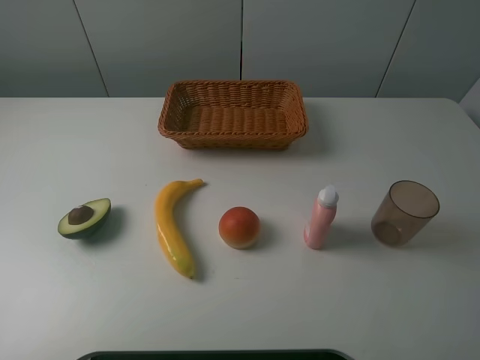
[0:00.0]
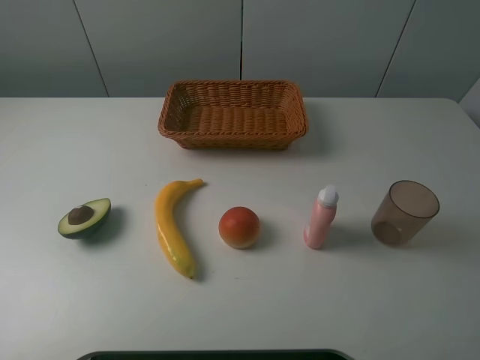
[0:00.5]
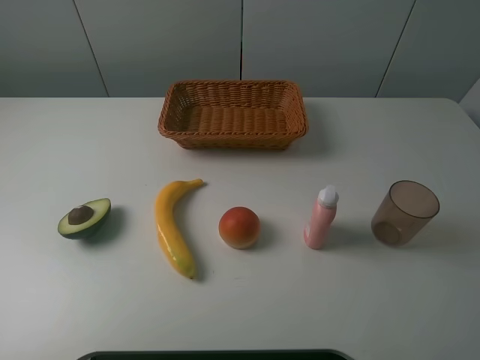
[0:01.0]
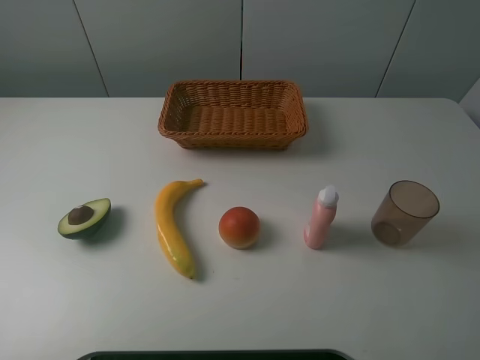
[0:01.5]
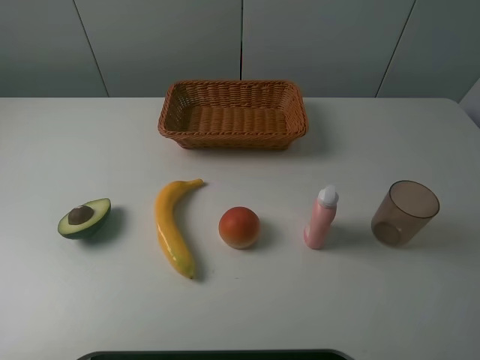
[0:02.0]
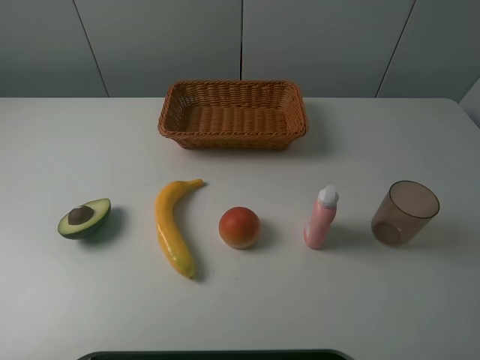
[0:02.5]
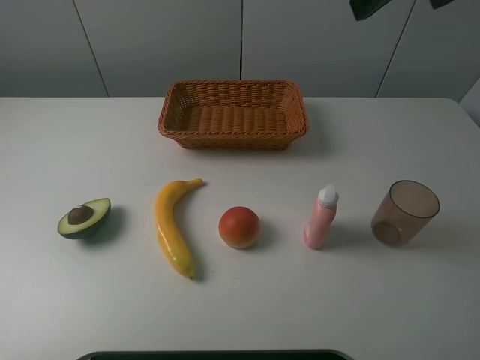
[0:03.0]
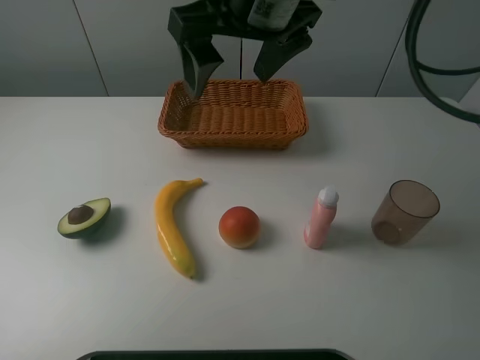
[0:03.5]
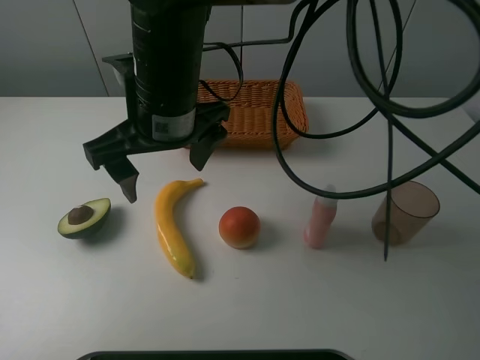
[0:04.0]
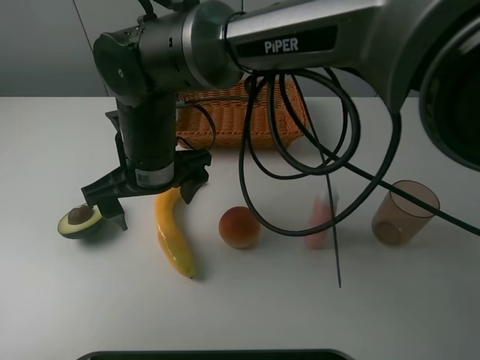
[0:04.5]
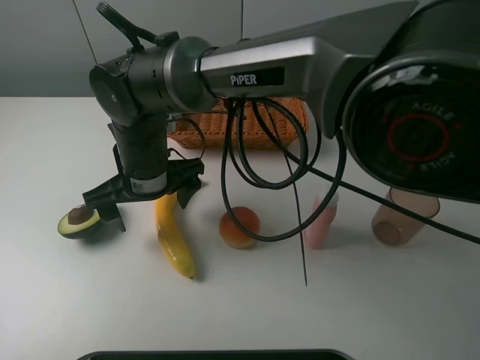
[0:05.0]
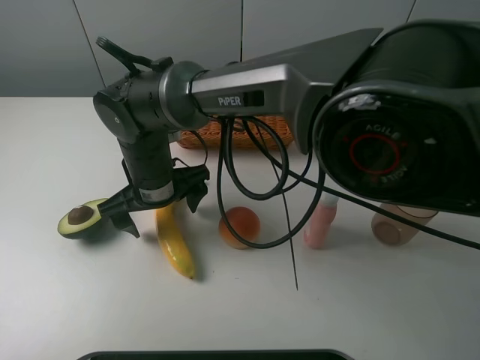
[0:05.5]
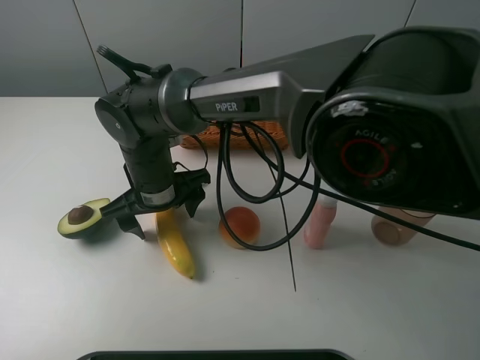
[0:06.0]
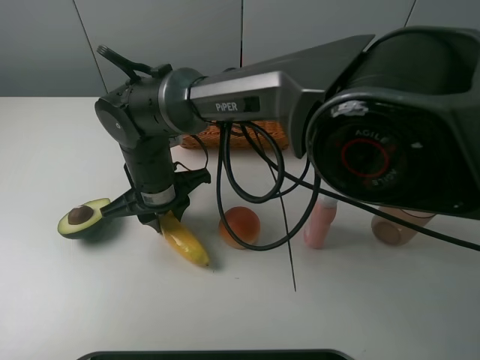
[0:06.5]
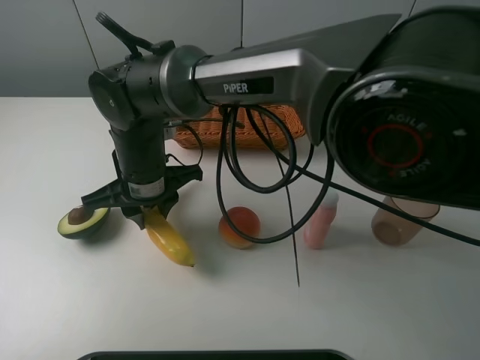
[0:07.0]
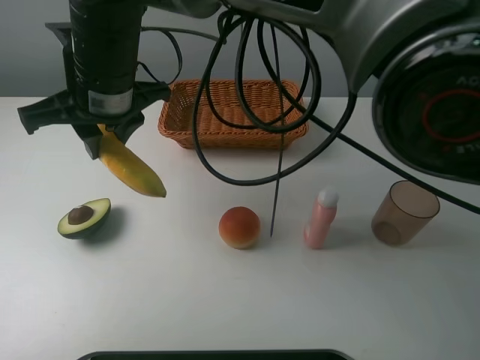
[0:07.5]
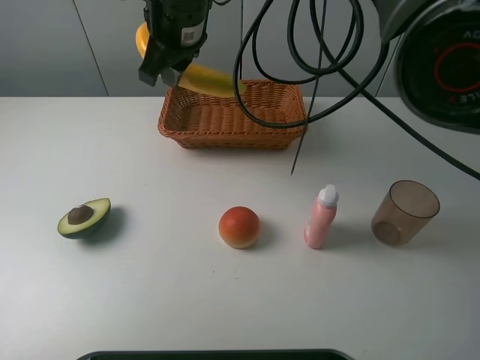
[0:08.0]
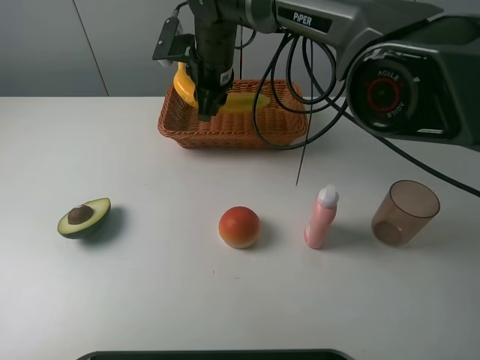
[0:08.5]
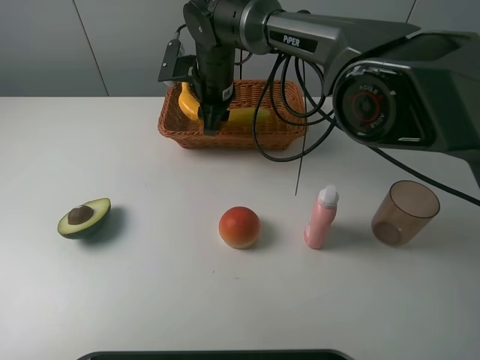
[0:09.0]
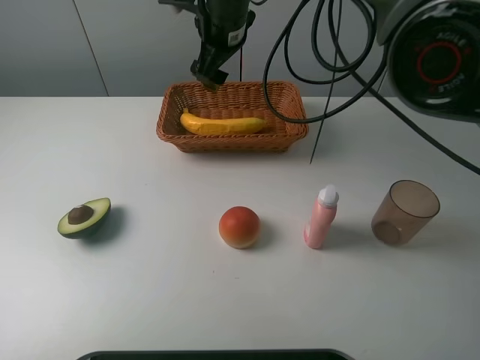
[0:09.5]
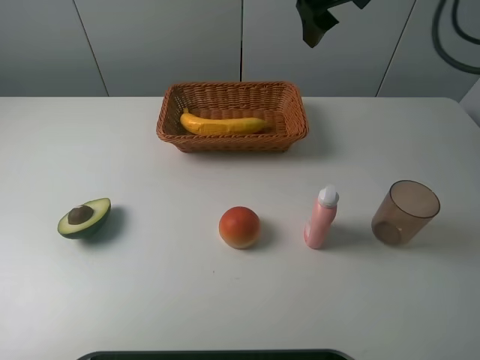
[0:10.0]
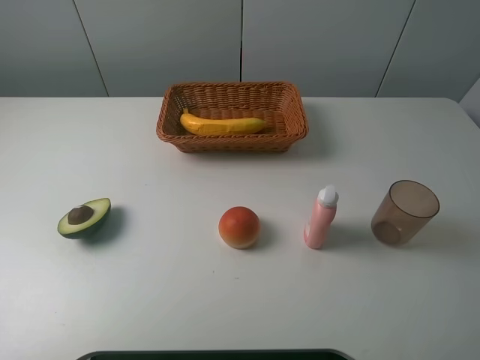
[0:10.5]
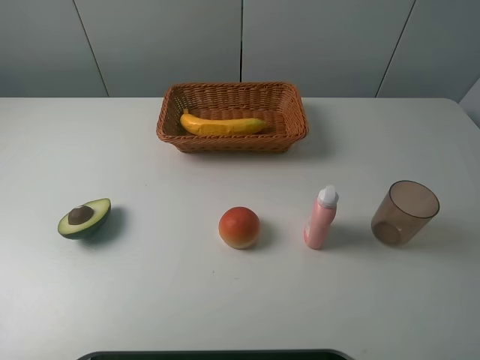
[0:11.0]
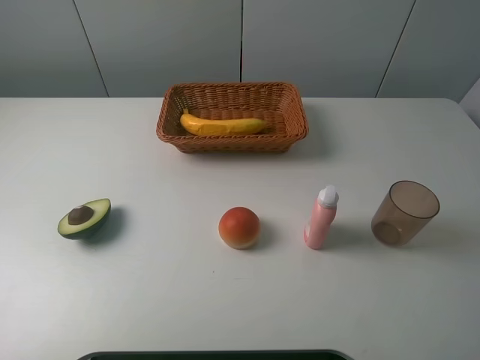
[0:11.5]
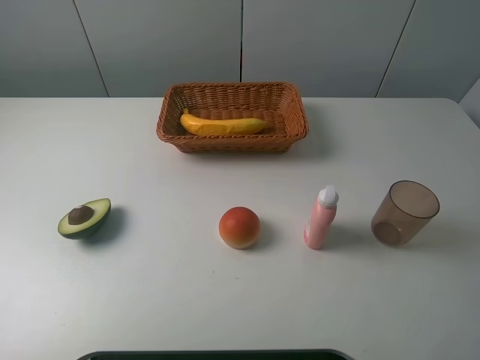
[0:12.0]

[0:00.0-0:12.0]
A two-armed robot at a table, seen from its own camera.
Task of the whole recording: randomly pick up an item from the table and put it in the basket.
Step, 0:00.0 to 0:06.0: Grasp the banana with the right gripper.
Step, 0:06.5 to 0:09.5: Place the banana into the basket with the right gripper.
0:00.0 to 0:02.0: Both grippers stay put.
0:02.0 to 0:04.0: The right gripper shifts roughly 40 cm to the left and forward.
0:04.0 to 0:06.0: The right gripper travels downward by approximately 15 cm.
0:06.0 to 0:08.0: The right gripper moves upward and forward, roughly 20 cm, and closes its fingers.
0:08.0 to 0:10.0: The right gripper goes roughly 20 cm to the right, and opens its fingers.
0:10.0 to 0:12.0: The right gripper goes about 35 cm backward.

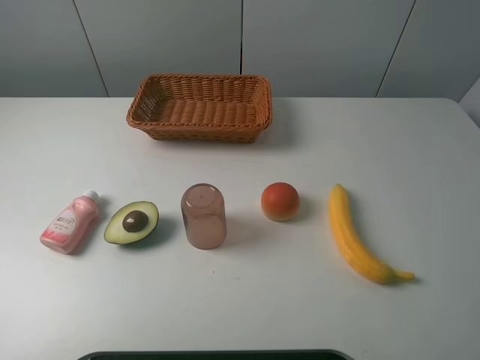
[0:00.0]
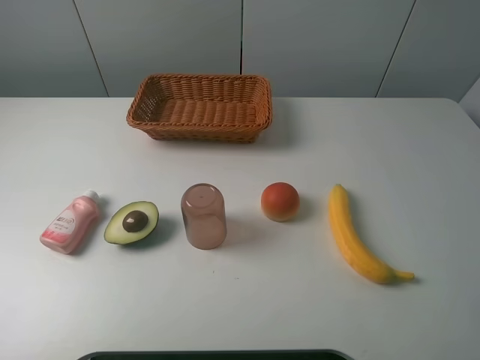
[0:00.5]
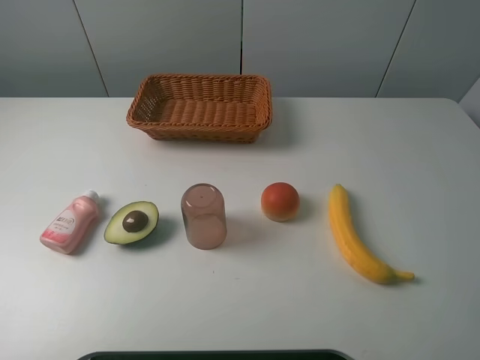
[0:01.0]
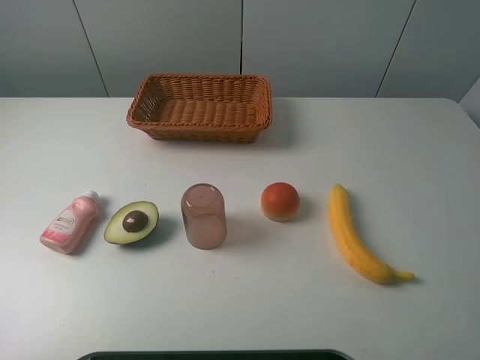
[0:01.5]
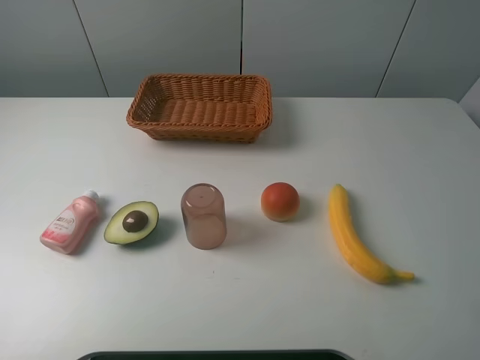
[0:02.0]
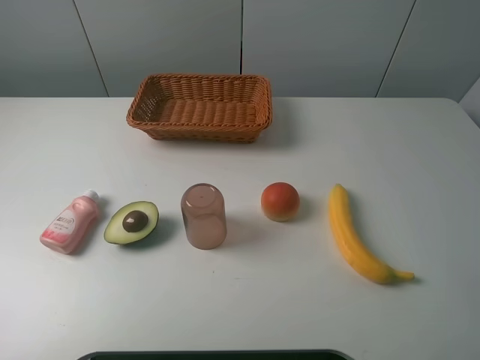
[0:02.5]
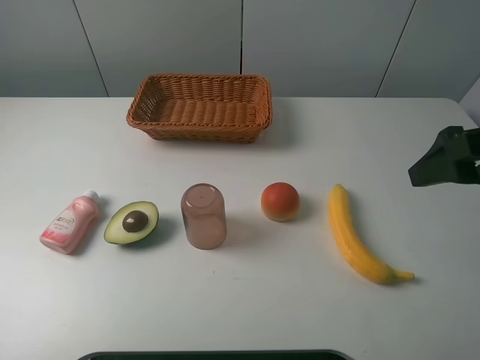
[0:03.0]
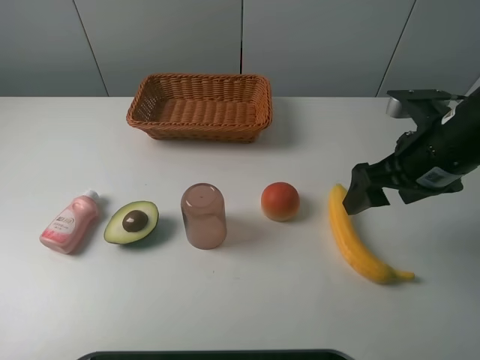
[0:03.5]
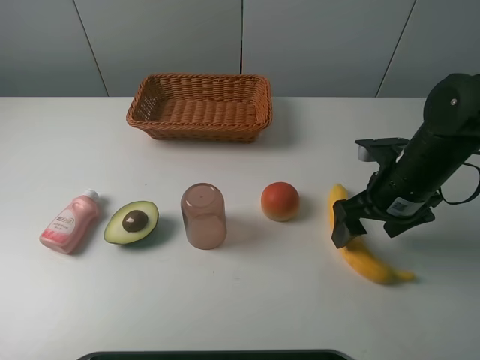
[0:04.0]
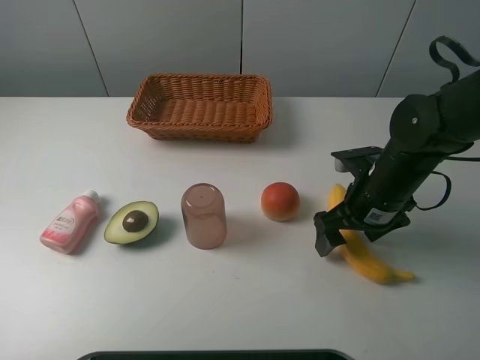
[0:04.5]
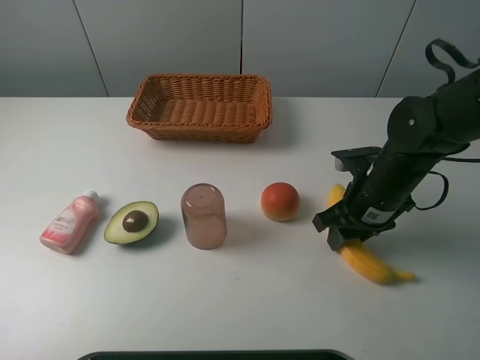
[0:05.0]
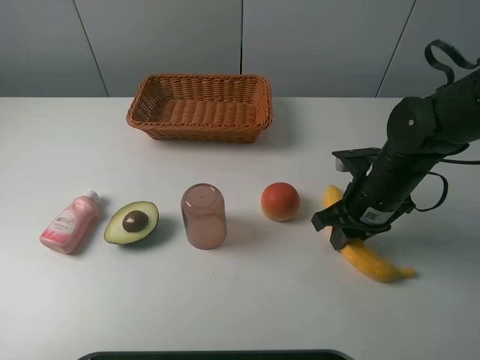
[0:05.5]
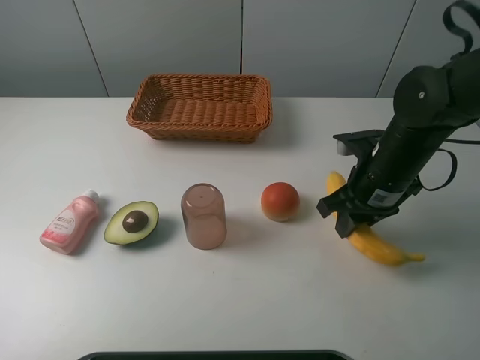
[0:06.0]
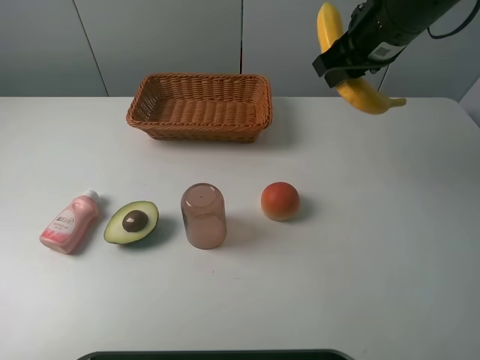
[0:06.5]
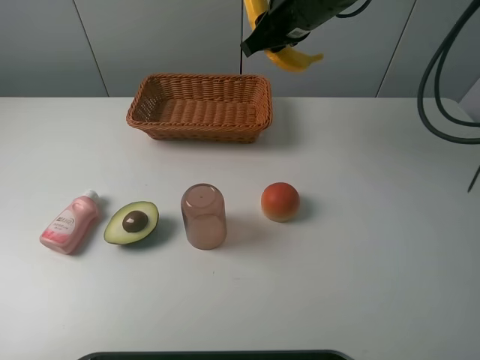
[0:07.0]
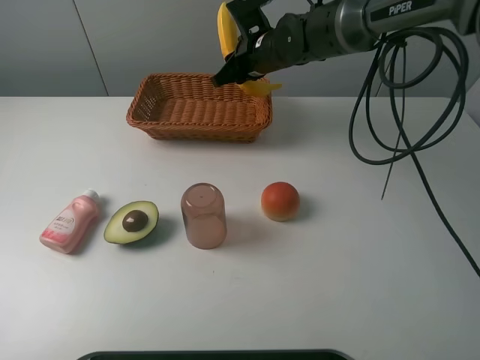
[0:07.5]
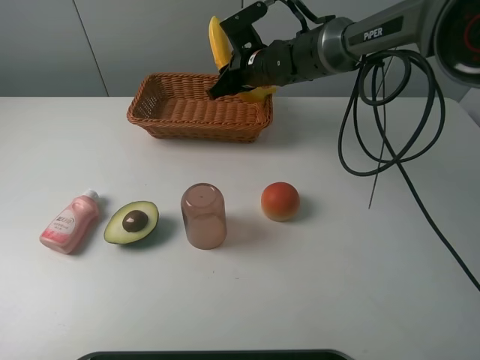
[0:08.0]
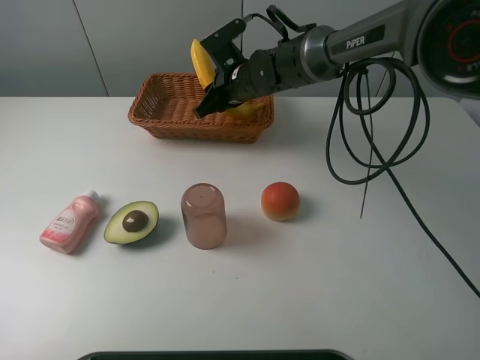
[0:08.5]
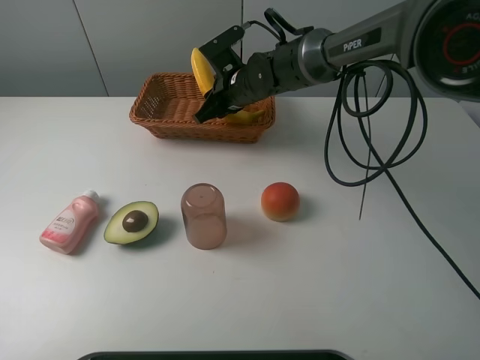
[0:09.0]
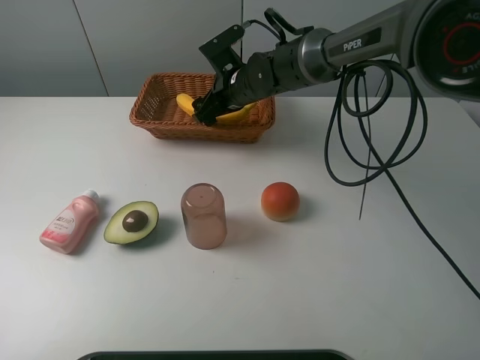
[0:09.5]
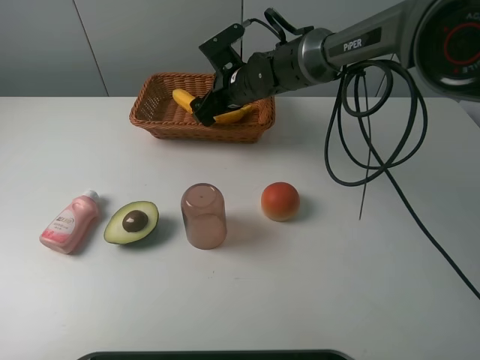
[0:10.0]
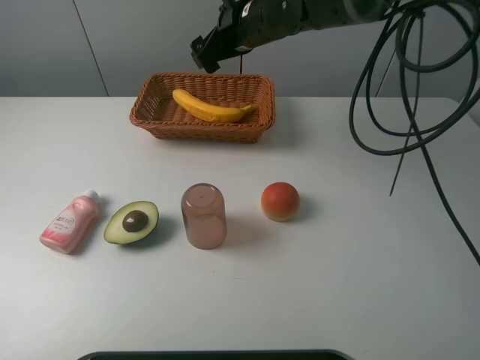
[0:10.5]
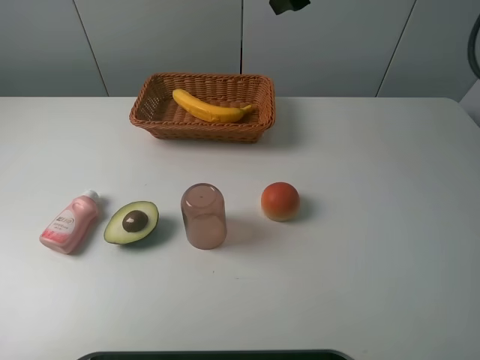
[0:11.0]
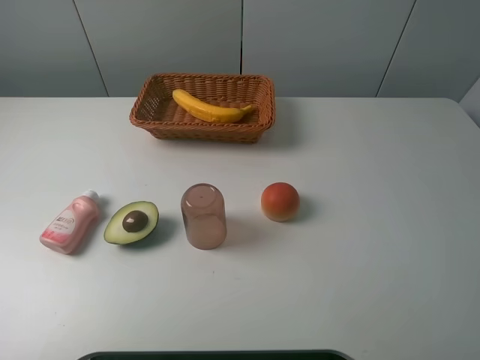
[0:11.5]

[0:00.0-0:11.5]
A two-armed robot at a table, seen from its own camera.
Task of the whole recording: randomly pick up an item from the table and put it in the basket.
Step, 0:00.0 to 0:05.5: Grasp the banana with the right gripper.
Step, 0:06.0 to 0:10.5: Place the banana into the basket with the right gripper.
0:02.0 to 0:04.0: The right gripper goes roughly 30 cm forward and downward.
0:04.0 to 0:06.0: The right gripper closes up.
0:06.0 to 0:07.5: The right gripper is displaced forward and to the left by about 25 cm.
0:07.5 to 0:09.5: The right gripper changes place by roughly 5 cm, and opens.
0:09.5 to 0:11.5: The right gripper heads upward, to the right and backward, covering about 40 cm.

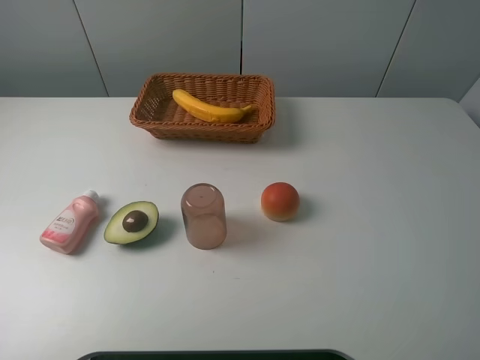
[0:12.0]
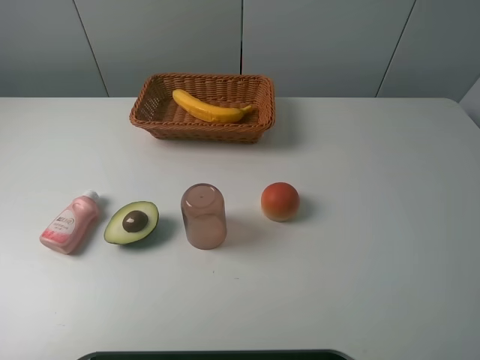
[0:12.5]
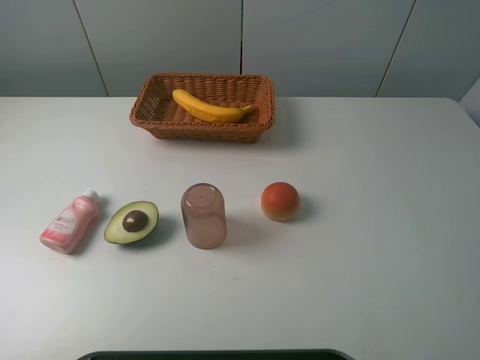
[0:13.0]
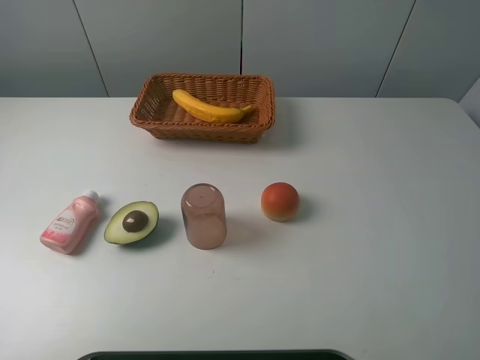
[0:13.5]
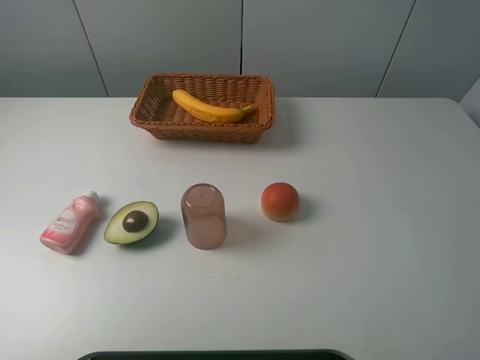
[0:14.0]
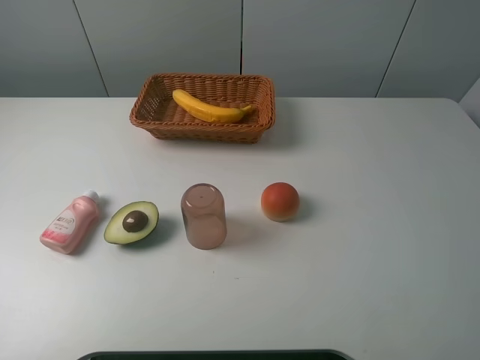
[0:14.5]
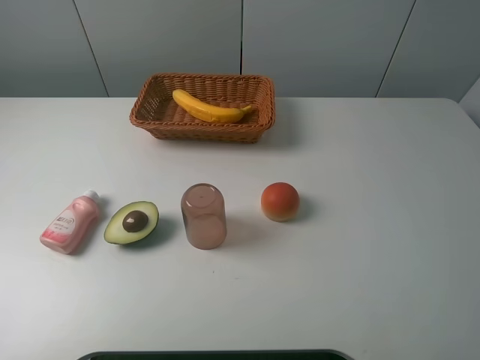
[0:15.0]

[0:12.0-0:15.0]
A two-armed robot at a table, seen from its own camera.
Task of the whole recording: randomly pick up an item from the table and put it in the basket.
0:13.5 to 0:15.0: Both grippers stay put.
